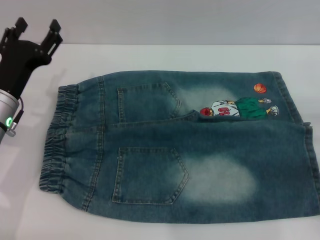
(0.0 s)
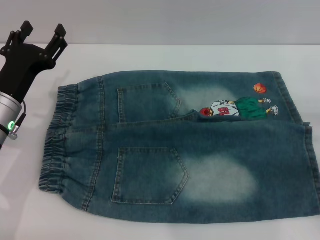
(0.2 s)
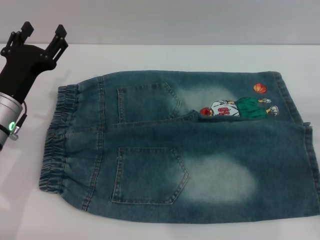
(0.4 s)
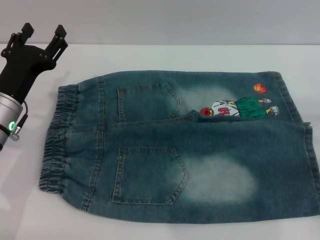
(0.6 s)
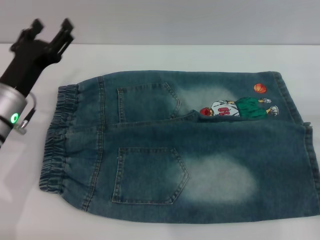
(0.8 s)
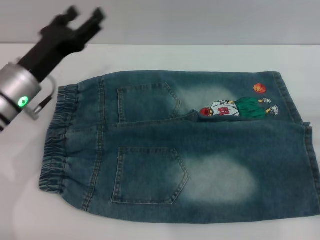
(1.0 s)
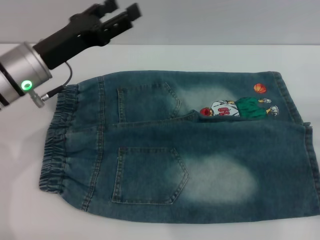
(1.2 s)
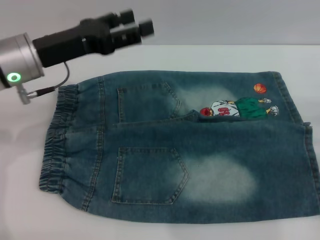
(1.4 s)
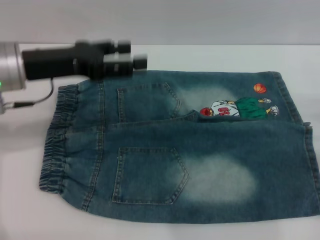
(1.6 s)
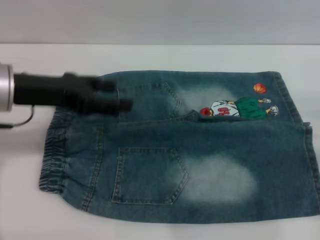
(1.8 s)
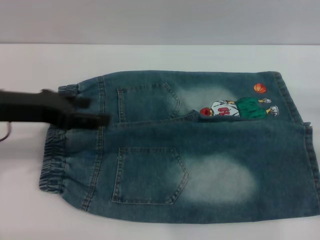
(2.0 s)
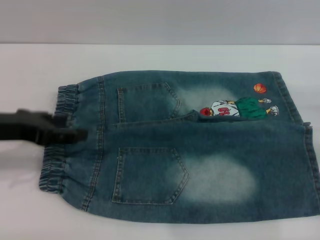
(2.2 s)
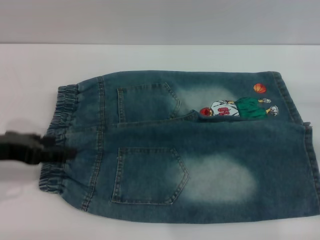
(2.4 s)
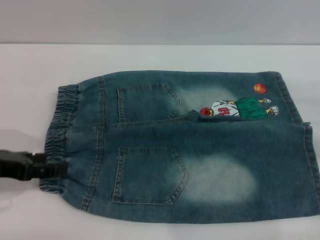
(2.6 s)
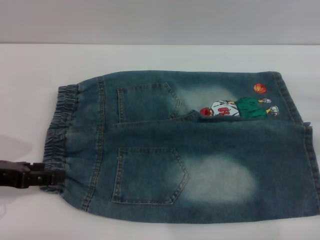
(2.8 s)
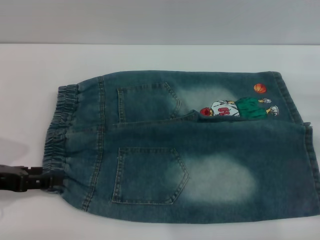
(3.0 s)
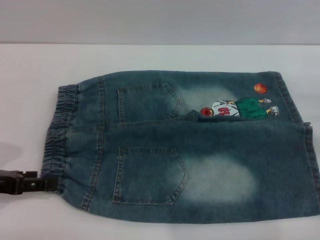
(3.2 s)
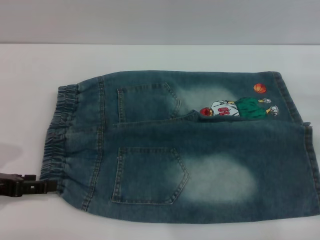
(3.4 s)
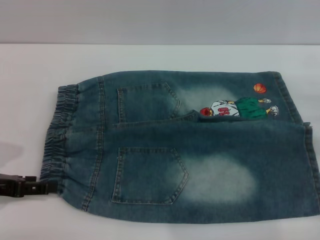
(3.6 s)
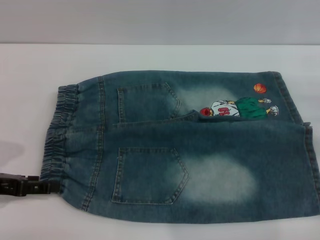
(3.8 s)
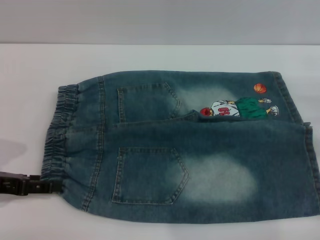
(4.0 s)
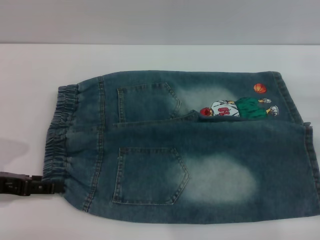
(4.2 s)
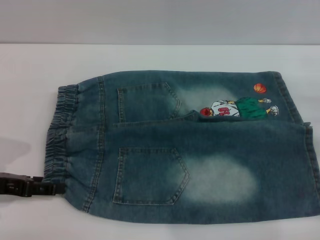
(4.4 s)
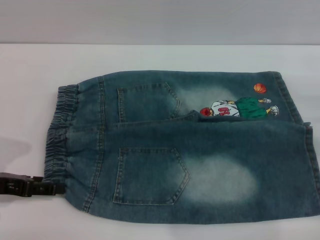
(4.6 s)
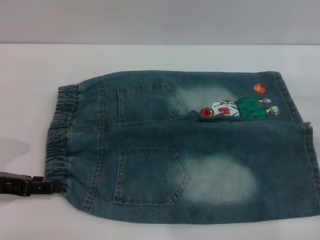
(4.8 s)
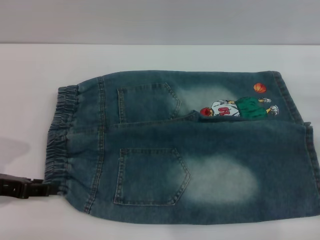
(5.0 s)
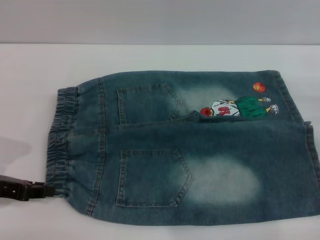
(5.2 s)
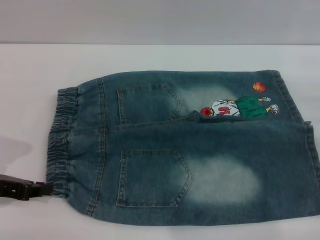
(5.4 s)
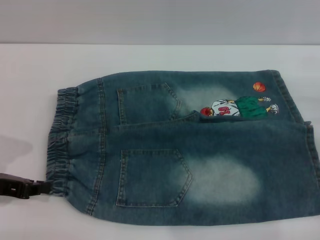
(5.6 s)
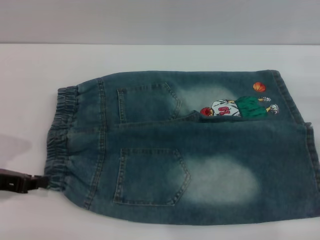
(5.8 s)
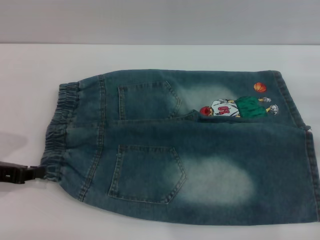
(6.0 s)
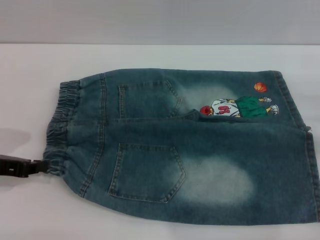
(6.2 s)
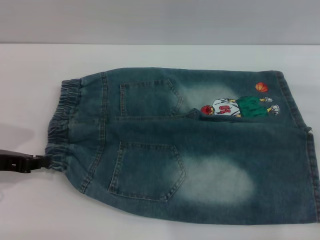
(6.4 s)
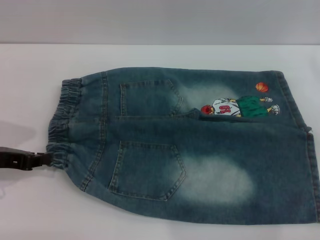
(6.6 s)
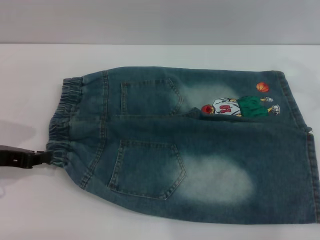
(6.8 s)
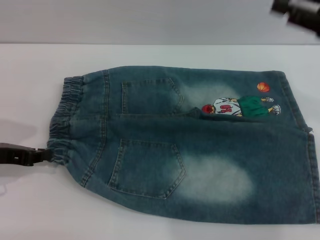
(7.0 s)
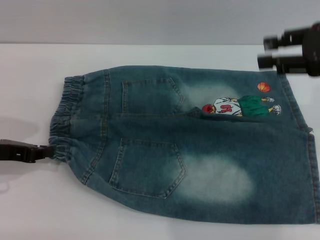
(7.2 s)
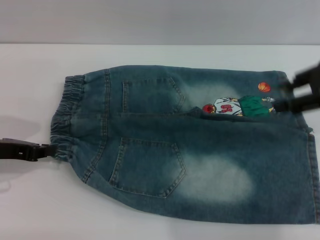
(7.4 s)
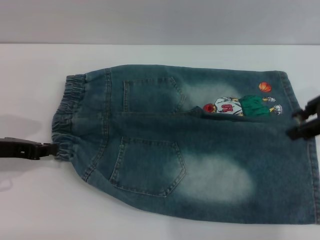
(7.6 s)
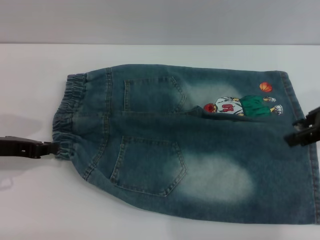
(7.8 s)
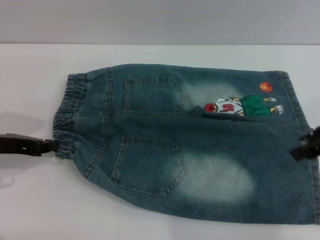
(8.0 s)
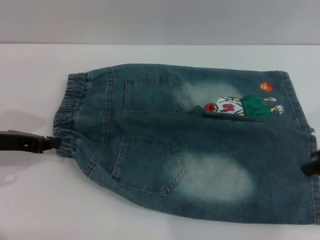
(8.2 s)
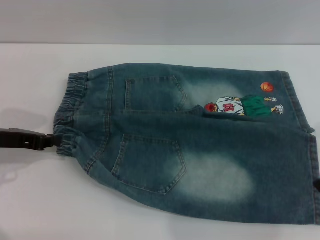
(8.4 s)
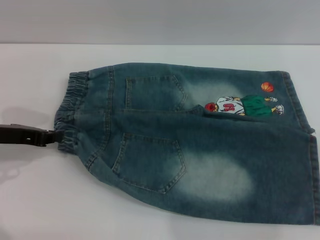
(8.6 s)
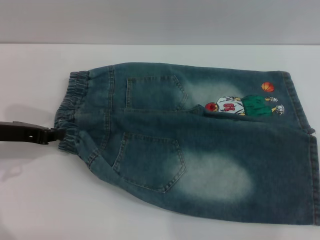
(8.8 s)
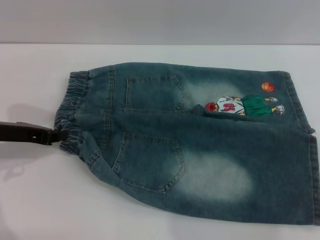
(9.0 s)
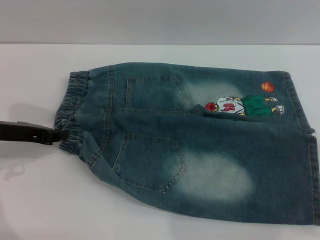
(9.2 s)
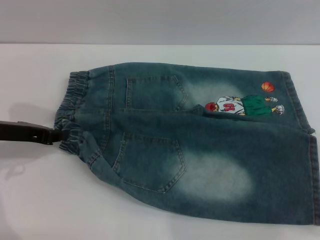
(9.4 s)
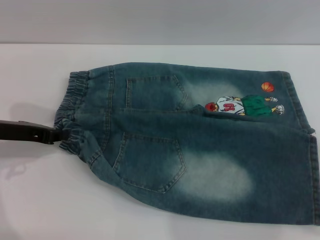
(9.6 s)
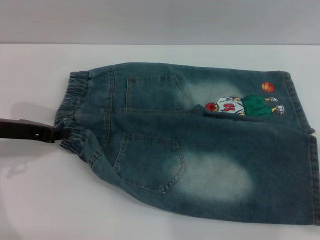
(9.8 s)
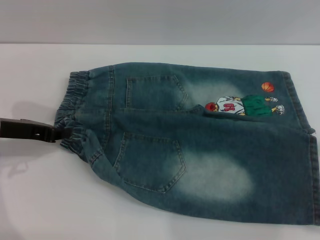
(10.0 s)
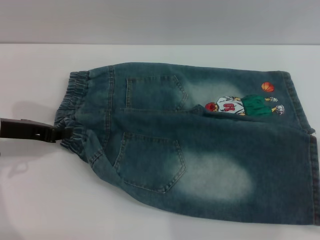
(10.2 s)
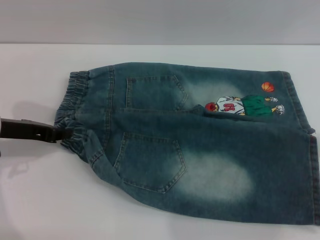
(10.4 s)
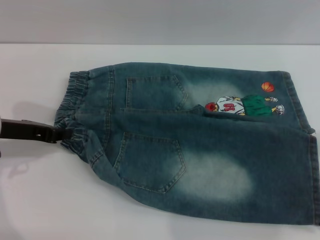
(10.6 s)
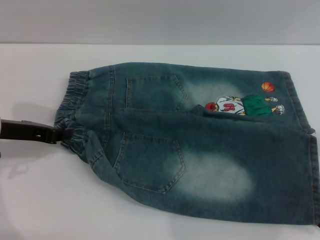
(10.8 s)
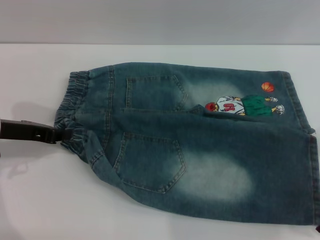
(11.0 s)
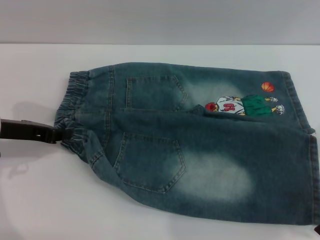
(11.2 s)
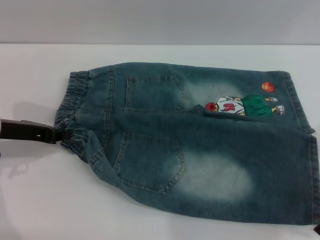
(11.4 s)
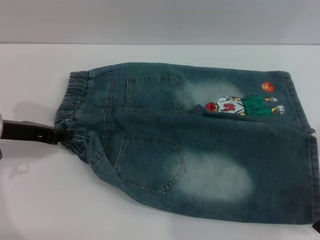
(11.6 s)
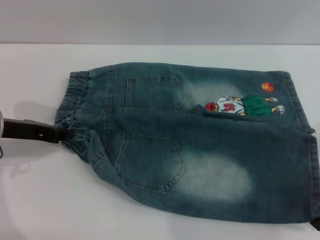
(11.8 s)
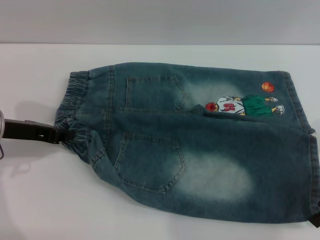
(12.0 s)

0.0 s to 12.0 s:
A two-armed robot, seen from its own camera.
0.0 to 1.6 s: The left gripper heads upward, covering some 10 cm.
1.6 to 3.0 s: The left gripper heads backward, to the left and downward, covering some 15 cm. The right gripper moves about 5 cm.
3.0 to 4.4 s: The grippers stay close to where they were, moving slightly.
4.4 to 6.0 s: The left gripper closes up.
6.0 to 7.6 s: The right gripper shifts approximately 20 cm upward and to the left.
7.6 to 9.0 s: The right gripper heads downward, backward and to the right, covering about 10 cm.
9.0 to 10.4 s: The grippers stay close to where they were, moving slightly.

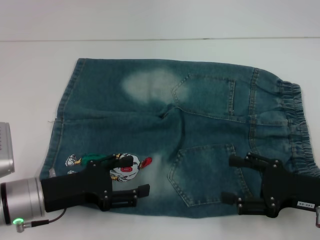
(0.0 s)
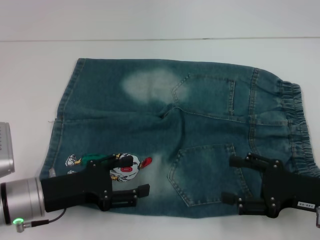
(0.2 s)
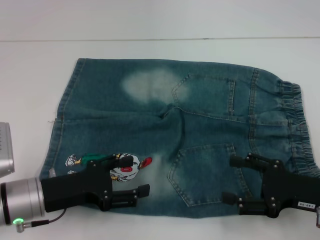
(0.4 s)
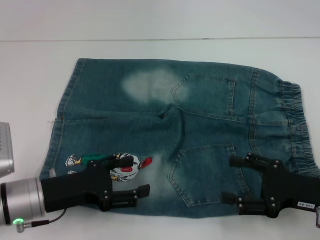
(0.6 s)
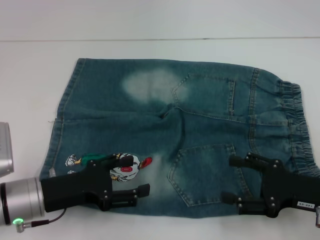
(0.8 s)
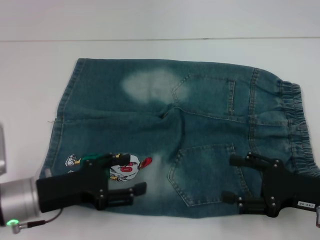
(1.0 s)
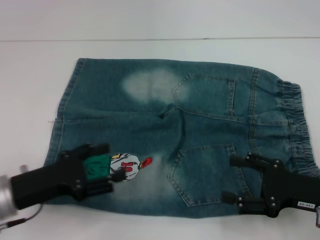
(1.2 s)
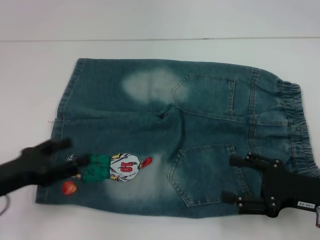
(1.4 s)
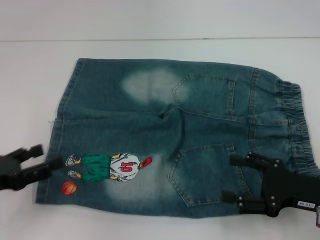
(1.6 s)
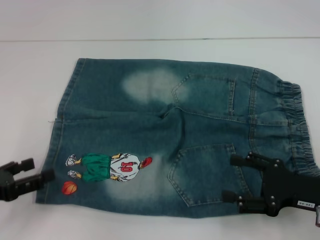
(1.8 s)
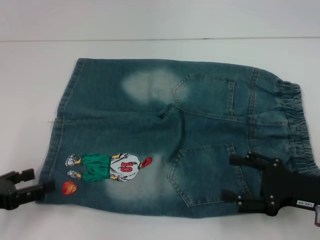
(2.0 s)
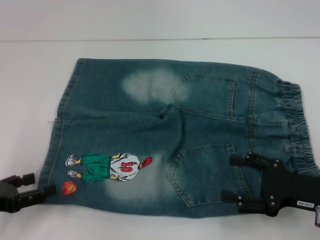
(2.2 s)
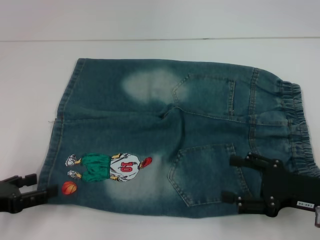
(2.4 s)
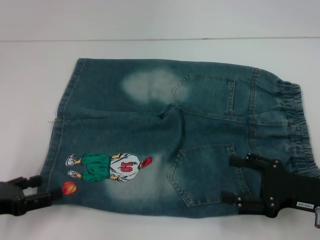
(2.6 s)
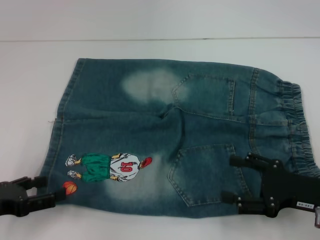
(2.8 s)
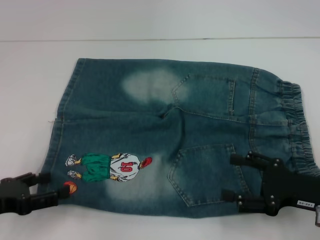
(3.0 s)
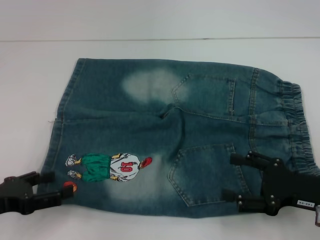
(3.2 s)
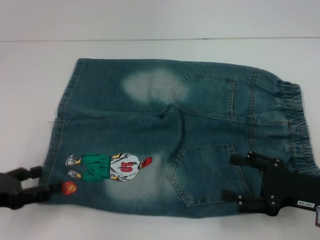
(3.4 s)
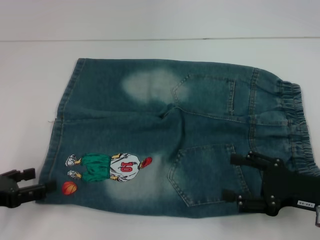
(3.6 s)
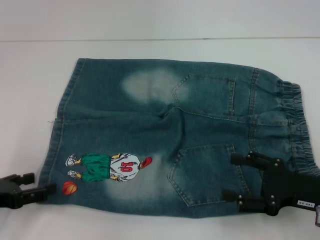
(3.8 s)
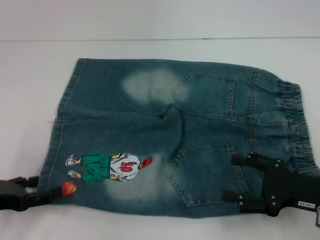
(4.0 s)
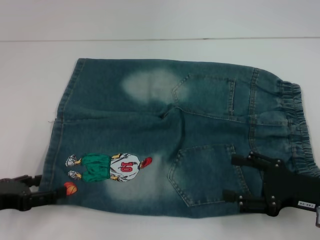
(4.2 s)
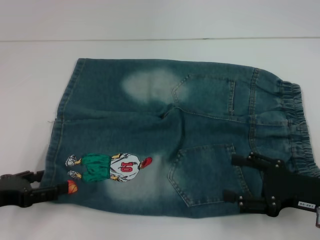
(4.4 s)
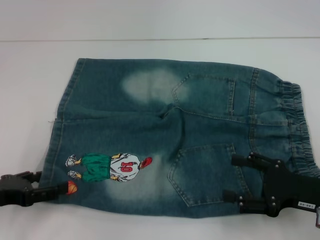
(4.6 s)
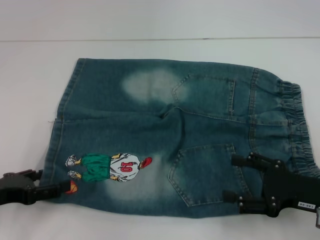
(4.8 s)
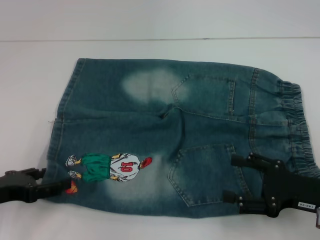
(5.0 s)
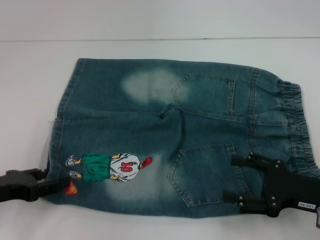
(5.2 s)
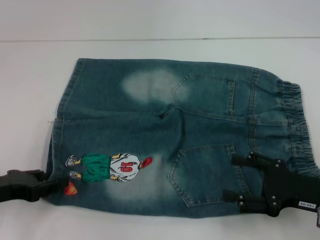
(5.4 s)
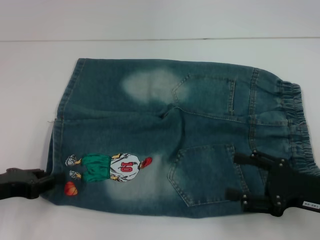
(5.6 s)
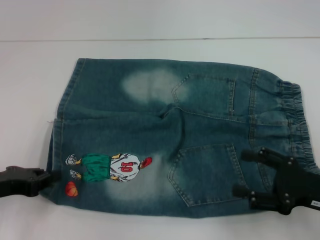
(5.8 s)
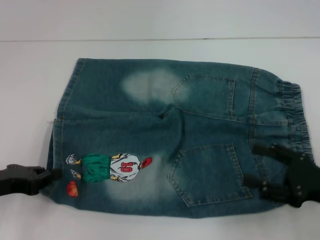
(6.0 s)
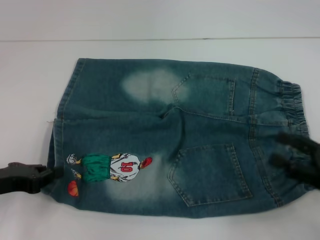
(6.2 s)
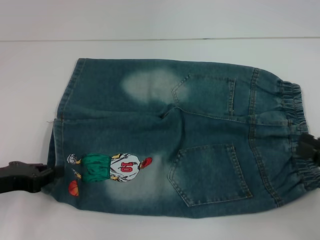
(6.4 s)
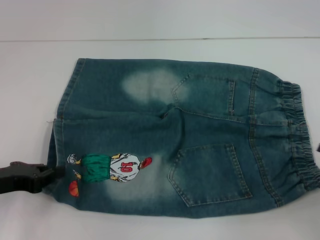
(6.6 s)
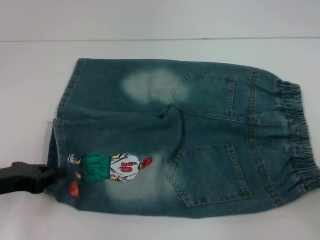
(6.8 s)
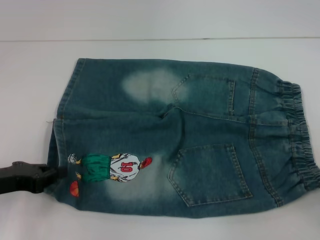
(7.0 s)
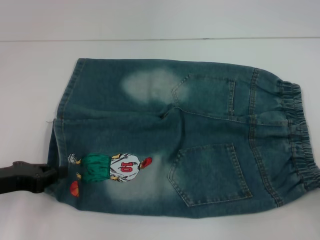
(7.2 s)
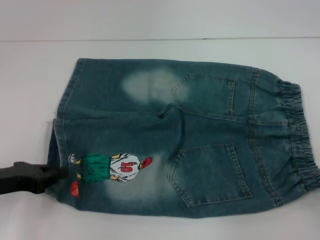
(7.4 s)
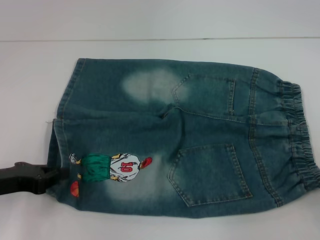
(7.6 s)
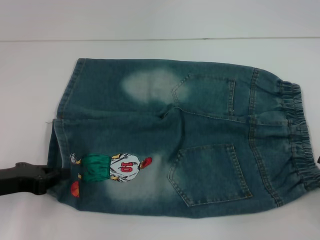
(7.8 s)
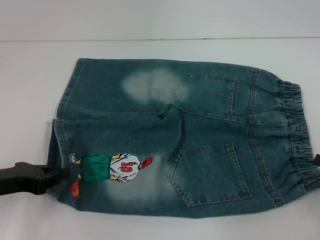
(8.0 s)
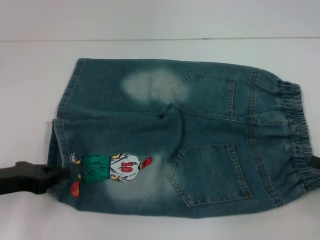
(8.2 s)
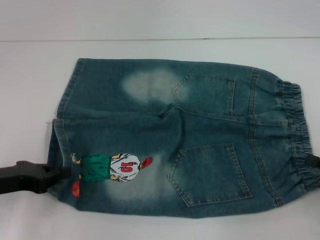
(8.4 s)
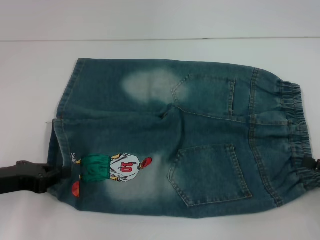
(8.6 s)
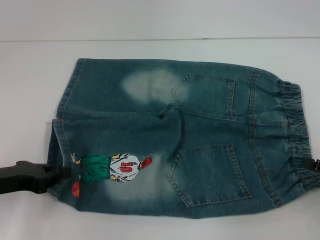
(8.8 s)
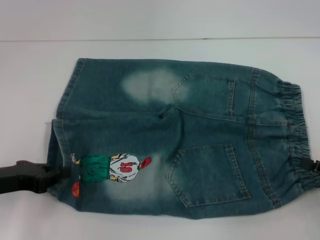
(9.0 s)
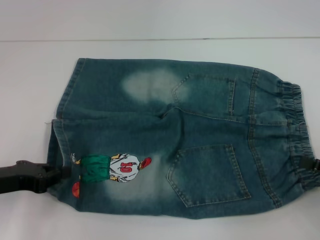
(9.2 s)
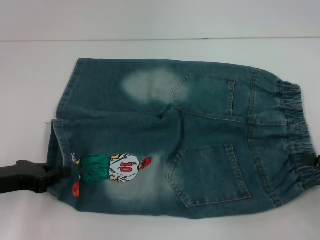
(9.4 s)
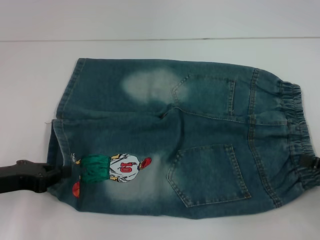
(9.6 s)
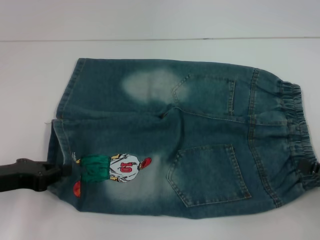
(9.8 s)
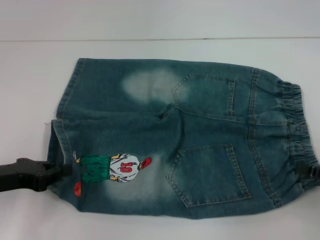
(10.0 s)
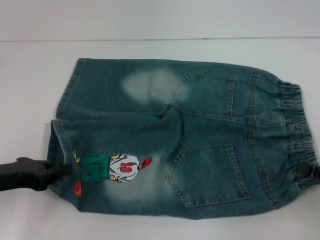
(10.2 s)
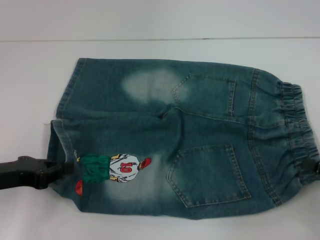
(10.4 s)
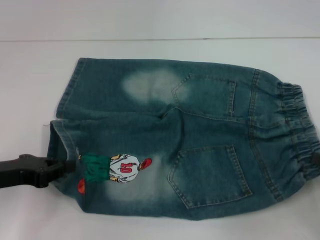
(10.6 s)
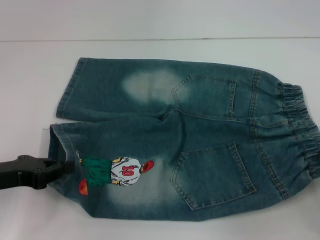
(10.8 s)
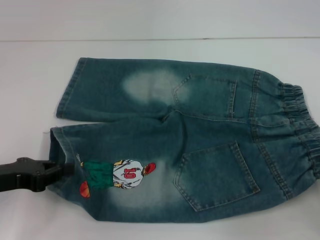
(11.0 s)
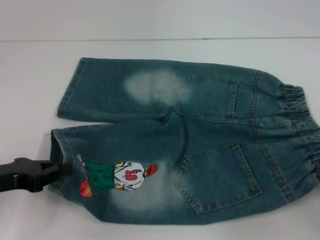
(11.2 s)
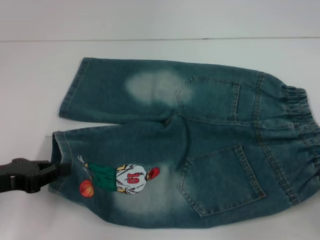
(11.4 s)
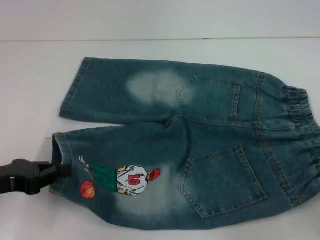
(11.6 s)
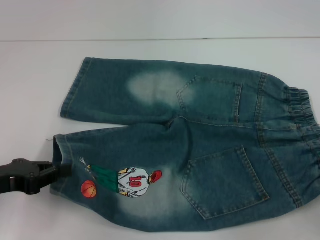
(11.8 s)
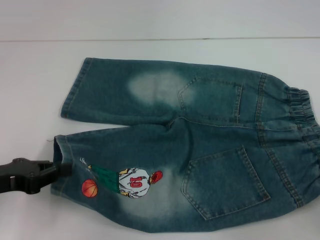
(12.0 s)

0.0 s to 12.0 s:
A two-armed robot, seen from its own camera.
Step, 0.0 to 6.0 s: Grab the lower left pant leg with your left hand.
Step, 6.2 to 10.2 s: Hold the lower right waistband with your right hand.
0.0 to 1.6 s: The left gripper is displaced to the left by roughly 10 cm.
1.6 to 4.4 s: There are only small adjustments of the grippers.
4.4 to 6.0 s: The left gripper closes.
6.0 to 7.6 s: The right gripper travels to the right by some 10 cm.
7.6 to 9.0 s: The grippers move only a little.
9.0 to 10.4 s: The right gripper closes.
10.4 to 12.0 s: The right gripper closes its fingers.
